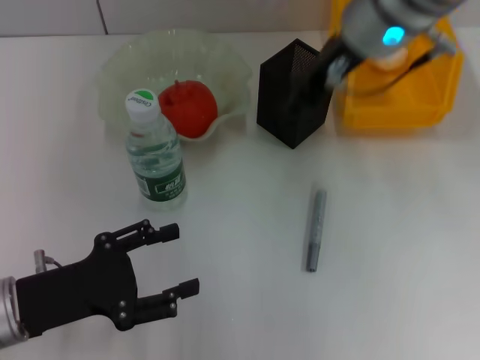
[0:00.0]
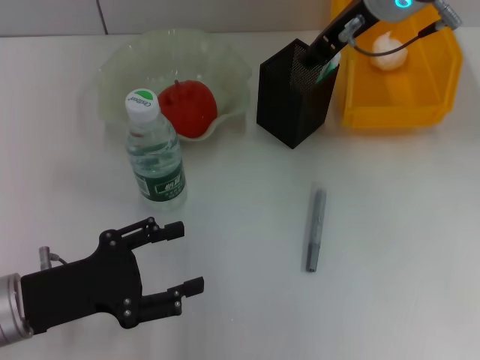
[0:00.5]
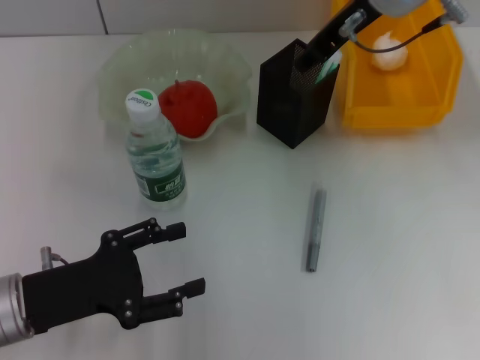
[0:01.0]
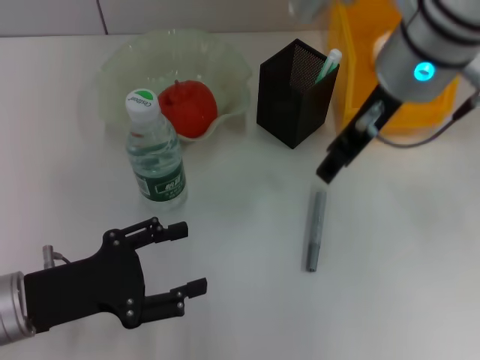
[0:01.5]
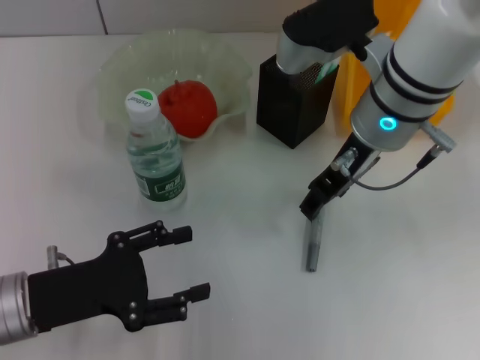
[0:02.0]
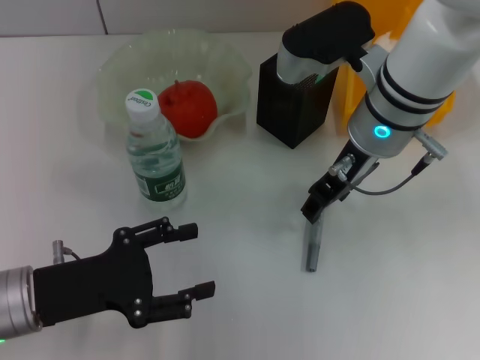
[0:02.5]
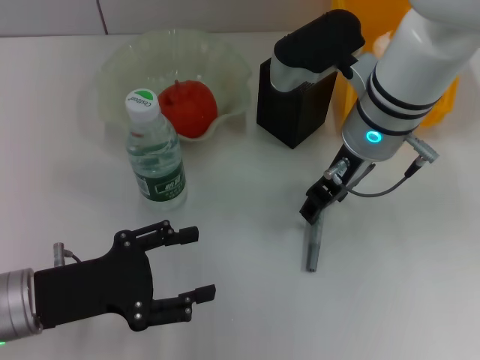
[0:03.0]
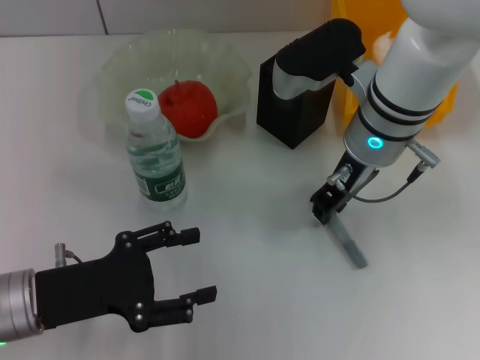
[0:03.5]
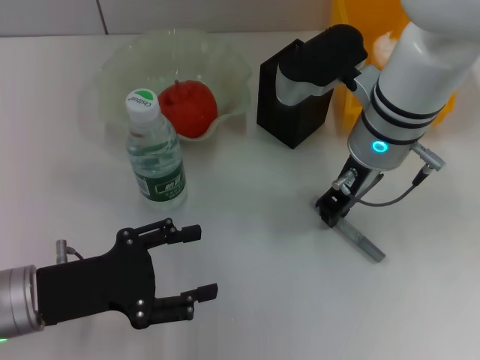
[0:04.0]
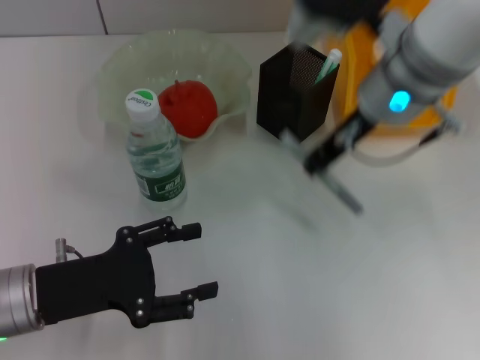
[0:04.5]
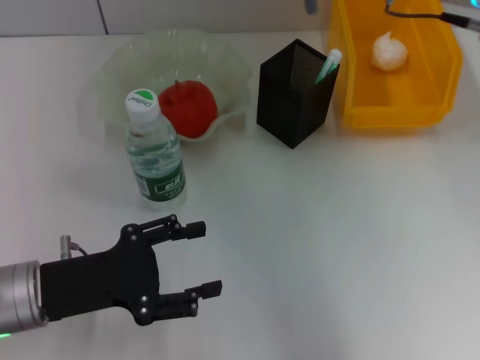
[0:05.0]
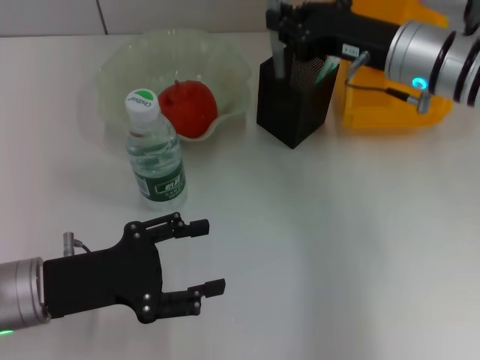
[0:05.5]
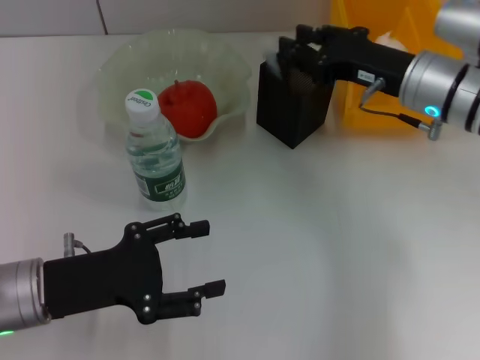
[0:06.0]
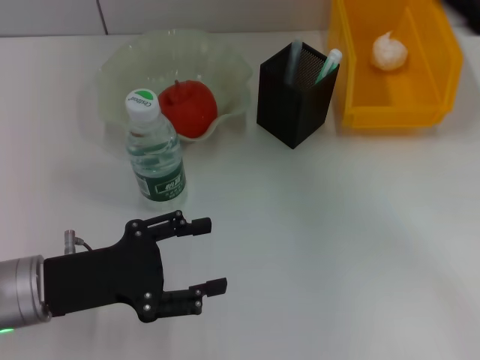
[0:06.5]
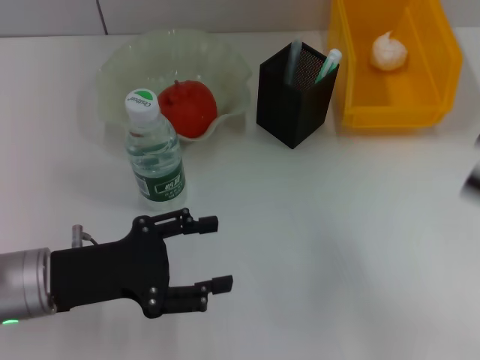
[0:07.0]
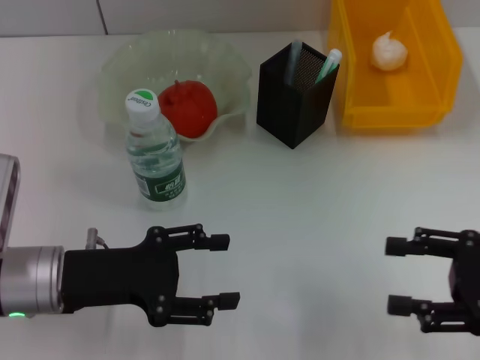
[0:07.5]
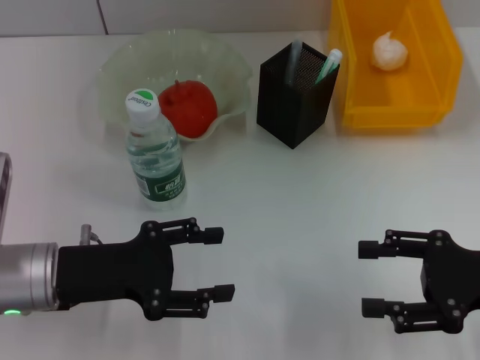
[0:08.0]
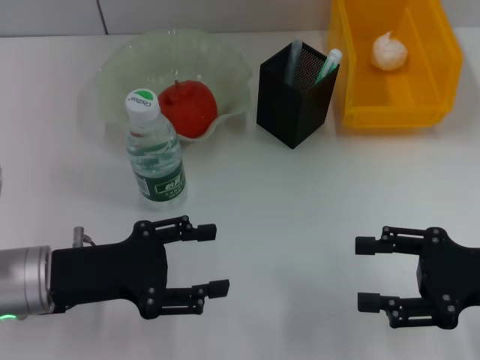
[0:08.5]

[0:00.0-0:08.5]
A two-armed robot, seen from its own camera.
Step, 0:01.0 to 0:03.5: Grab the gray glue with the right hand.
Step, 0:04.0 to 0:05.5: Place the gray glue into the pen holder with the right hand.
0:00.0 to 0:02.0: The right gripper moves downward, roughly 5 cm, and moves approximately 5 cm forward and comes back.
0:02.0 to 0:04.0: The right gripper closes up.
0:04.0 to 0:06.5: The right gripper heads to the right, covering about 20 cm.
0:06.5 to 0:08.5: The right gripper shifts some 10 cm backward and downward, and opens its fingers.
